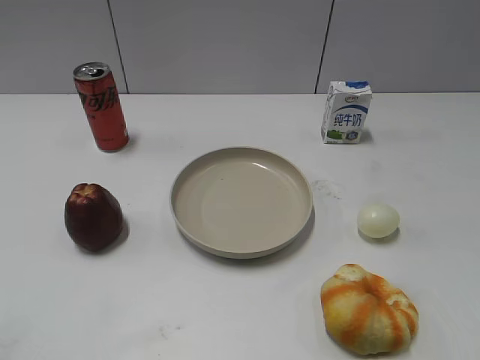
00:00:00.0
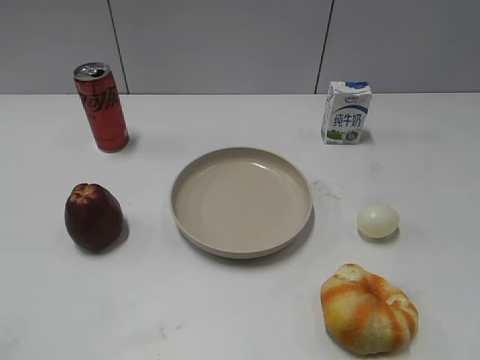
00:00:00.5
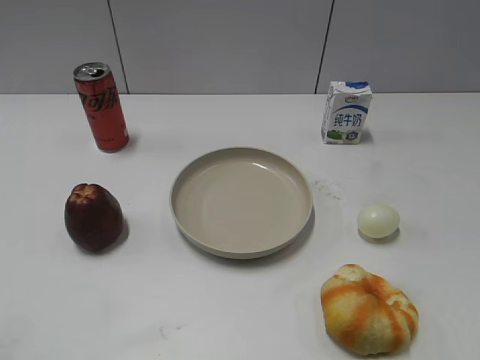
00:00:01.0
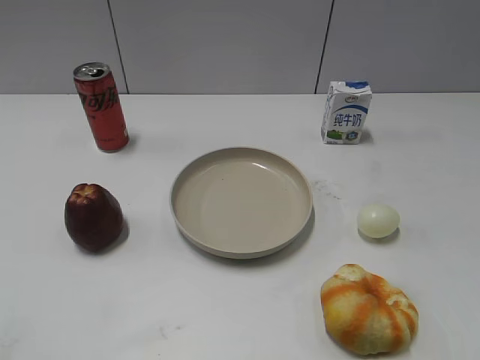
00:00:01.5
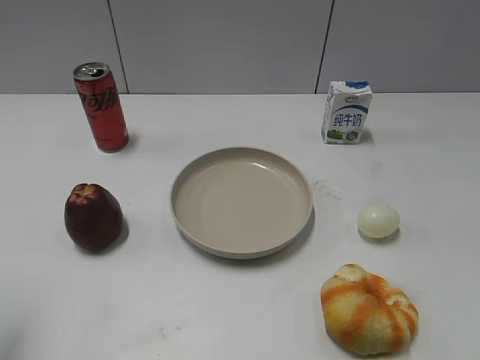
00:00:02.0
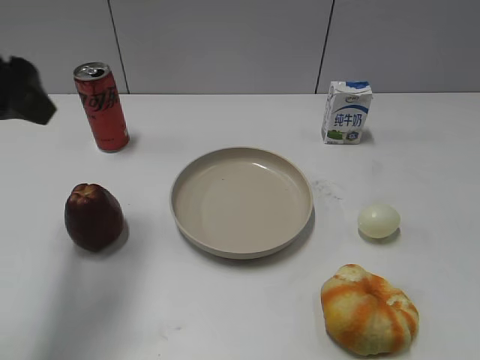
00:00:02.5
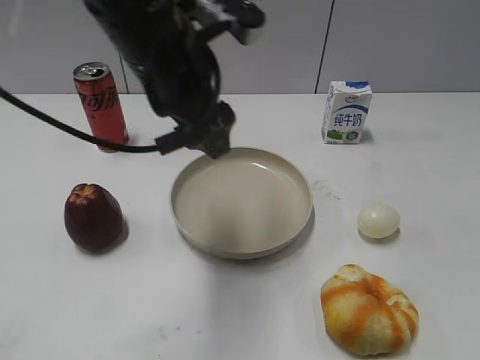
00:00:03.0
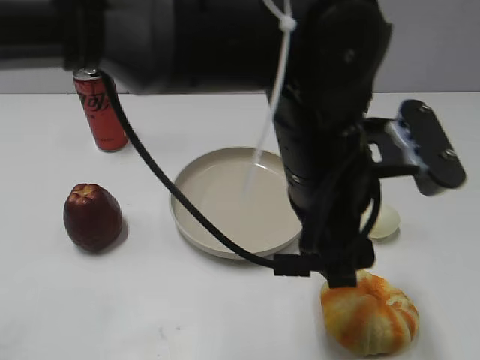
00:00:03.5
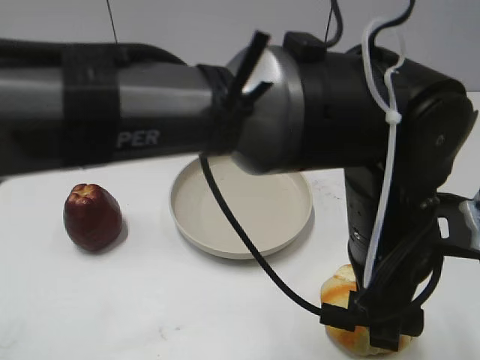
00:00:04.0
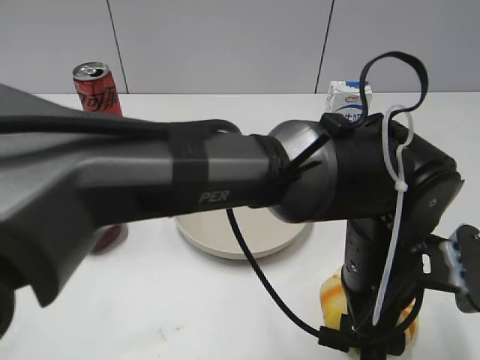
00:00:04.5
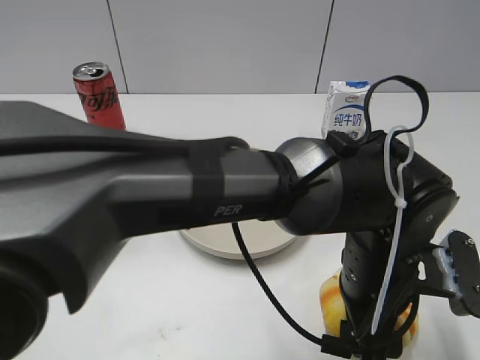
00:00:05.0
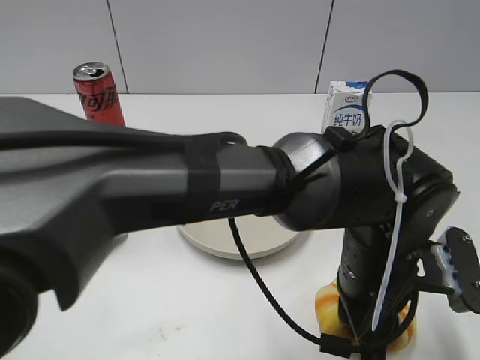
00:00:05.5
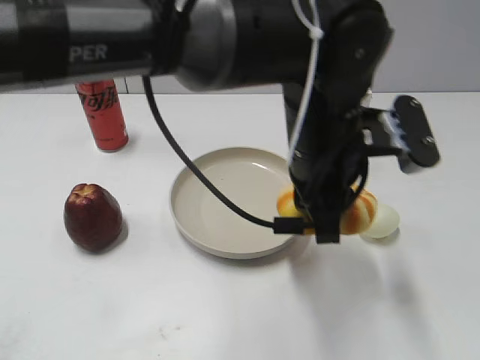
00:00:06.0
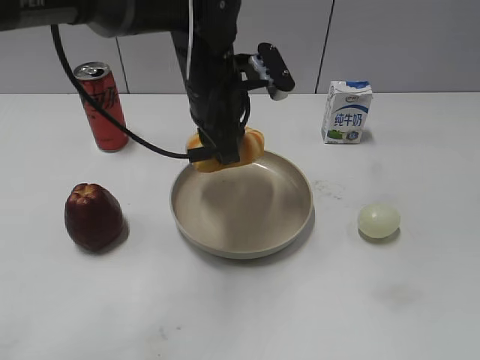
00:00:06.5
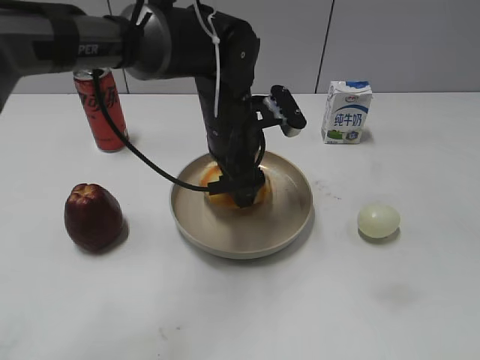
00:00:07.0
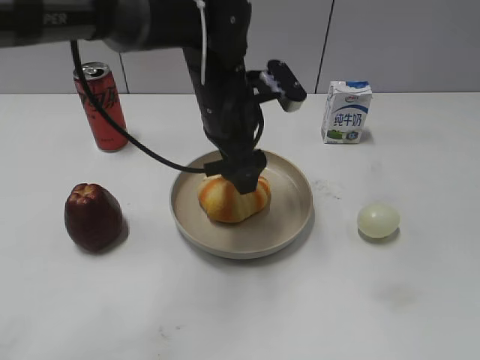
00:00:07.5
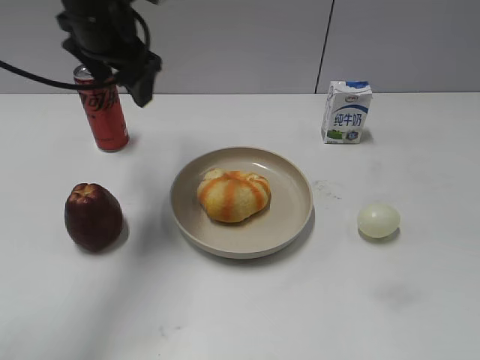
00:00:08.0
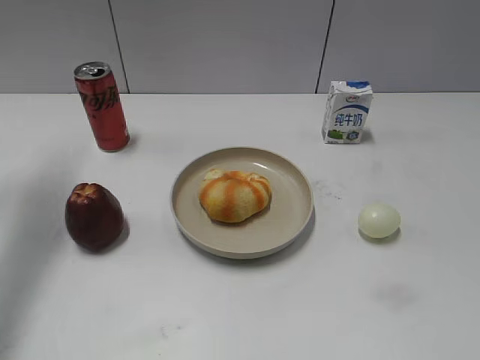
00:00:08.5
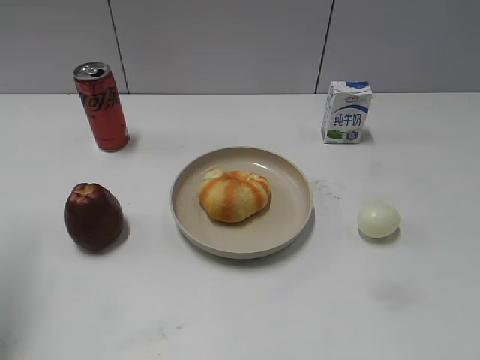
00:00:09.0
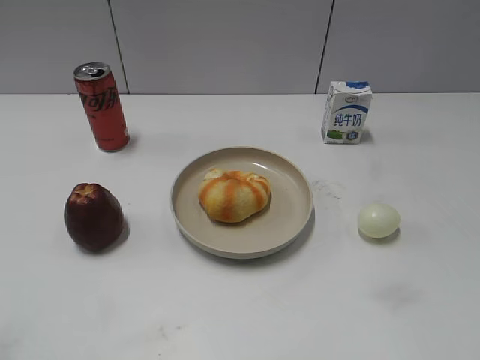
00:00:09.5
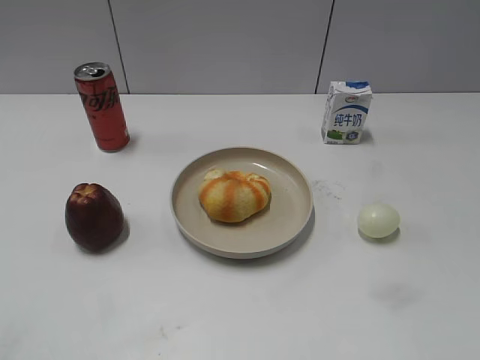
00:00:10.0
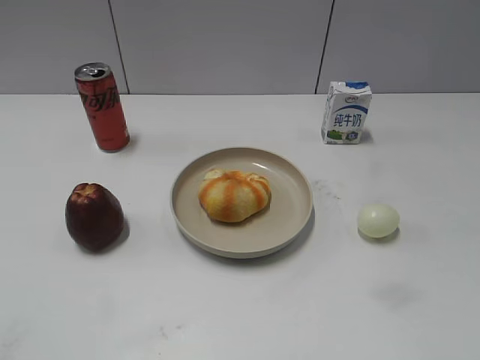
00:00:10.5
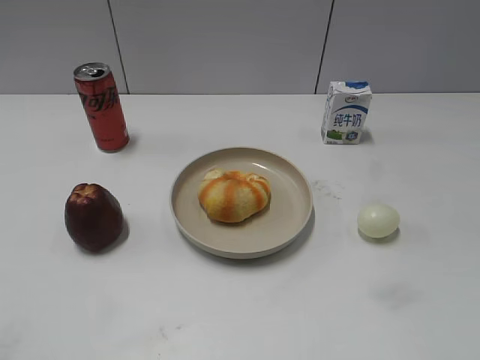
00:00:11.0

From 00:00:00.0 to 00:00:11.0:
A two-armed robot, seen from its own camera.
Step, from 00:00:02.0 to 00:00:05.0: Grasp the round bread with left gripper.
Step, from 00:00:05.5 to 00:00:07.5: Place the round bread on the plate with left gripper.
From 00:00:02.0 to 00:00:03.5: The left gripper heads to the right, covering about 40 cm.
From 00:00:03.5 to 00:00:05.5: The left gripper travels downward and to the right by roughly 10 cm, and closes.
From 00:00:05.5 to 00:00:07.5: The left gripper travels forward and to the left by some 20 cm, and opens up.
From 00:00:07.5 to 00:00:09.0: The left gripper is displaced to the left by some 30 cm.
From 00:00:09.0 to 00:00:11.0: The left gripper is displaced backward by some 25 cm.
